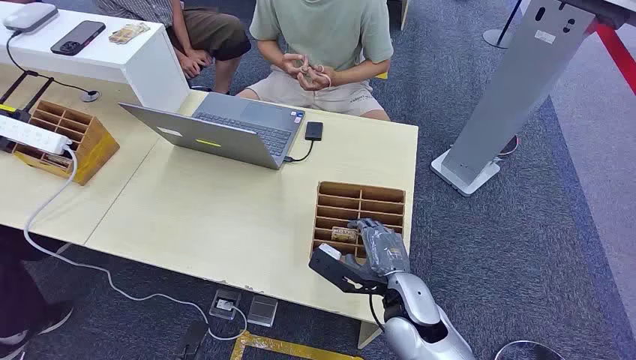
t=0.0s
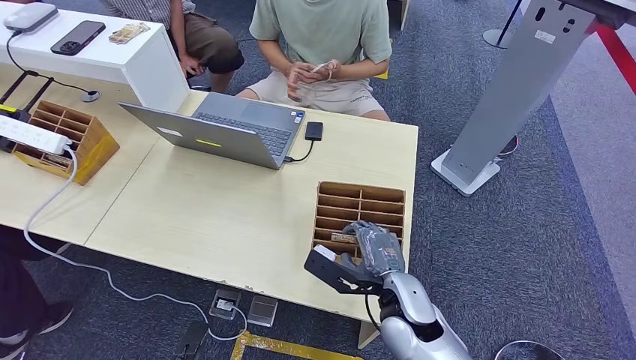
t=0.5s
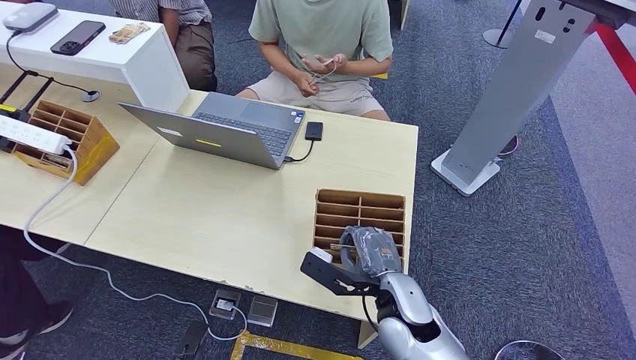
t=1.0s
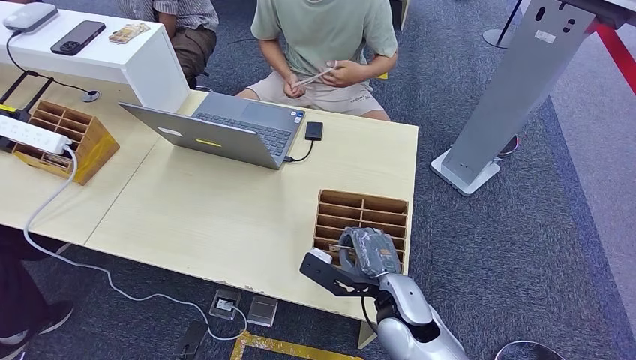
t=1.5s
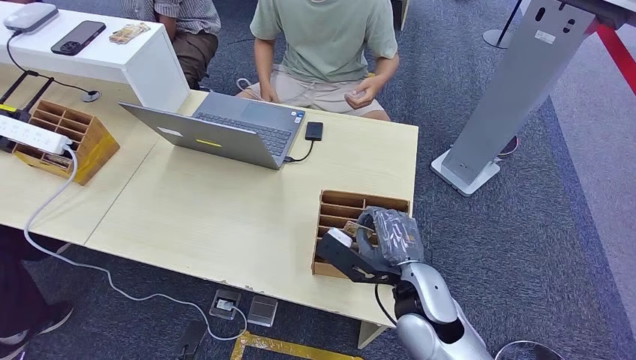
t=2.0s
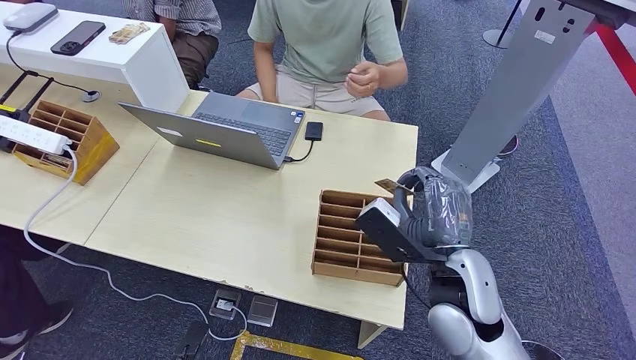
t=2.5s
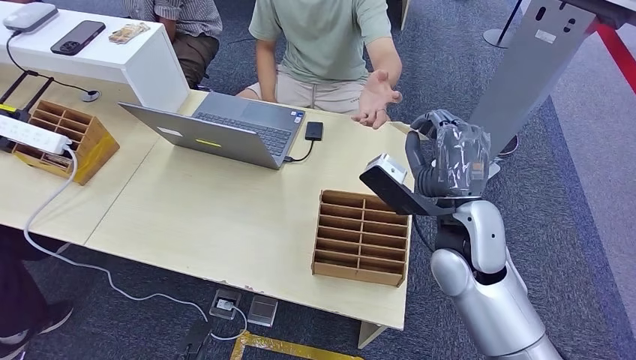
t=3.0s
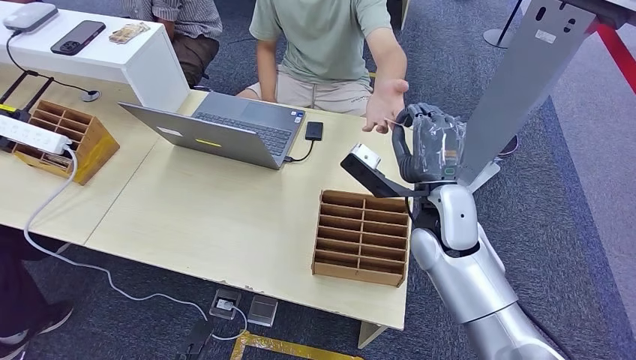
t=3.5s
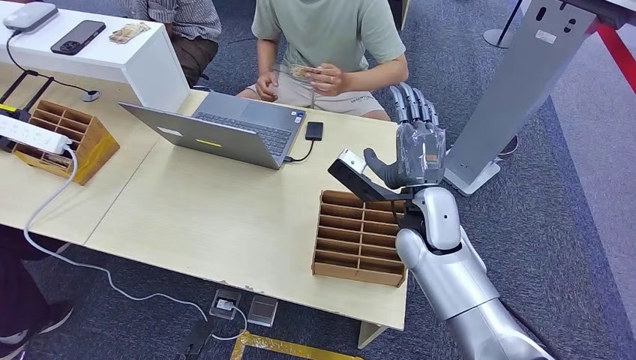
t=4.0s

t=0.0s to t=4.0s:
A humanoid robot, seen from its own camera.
Step, t=0.0s to t=2.0s: Pick up the room card from the card holder.
Step, t=3.0s to t=4.0s: Hand the room card to the target.
t=2.0s to t=4.0s: The right hand is displaced forward and upward by approximately 10 cm.

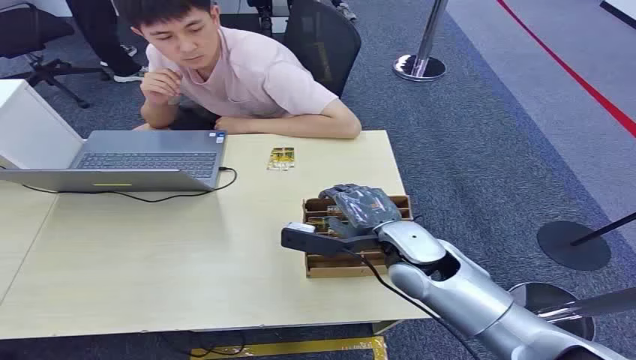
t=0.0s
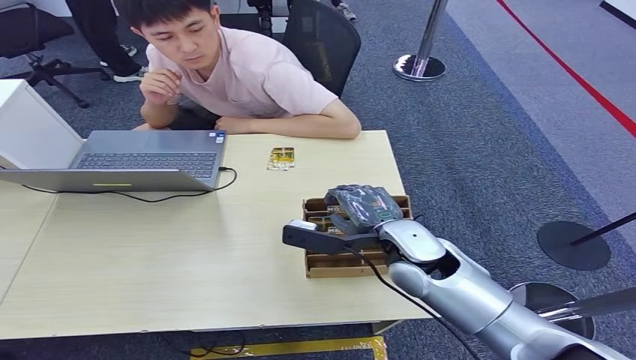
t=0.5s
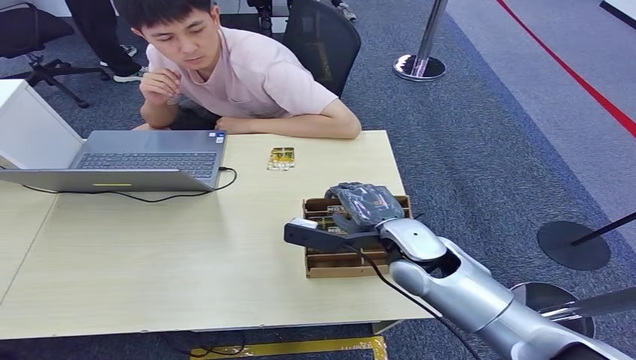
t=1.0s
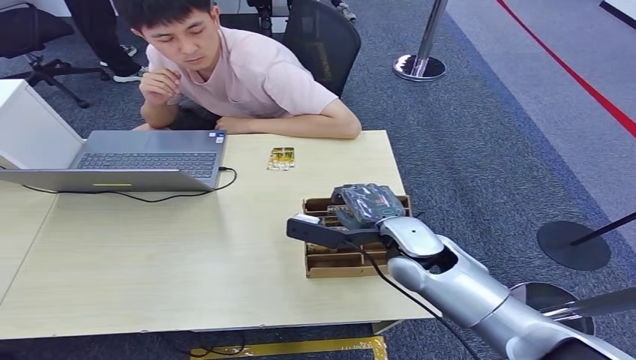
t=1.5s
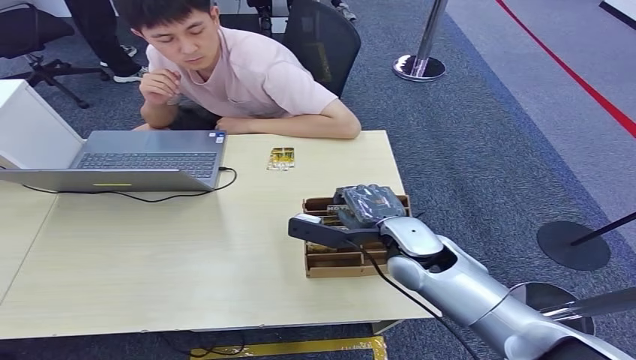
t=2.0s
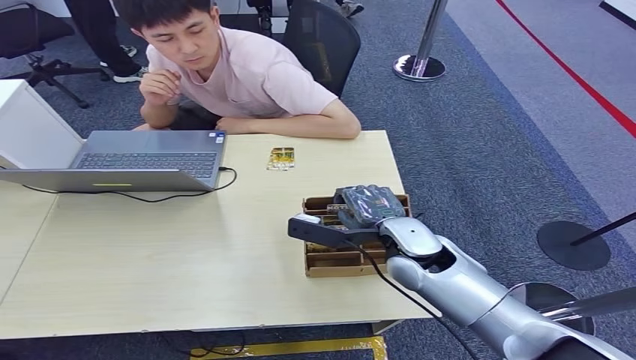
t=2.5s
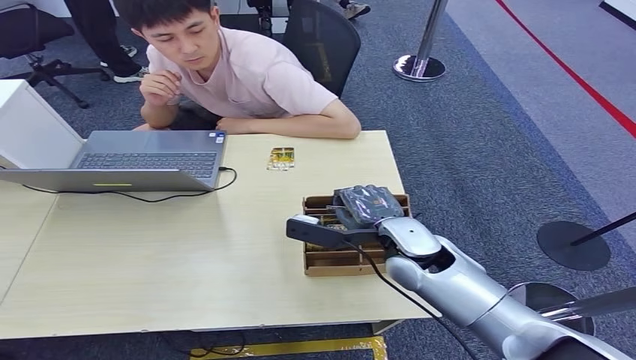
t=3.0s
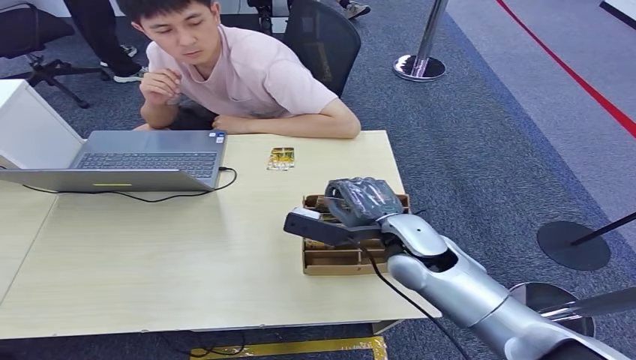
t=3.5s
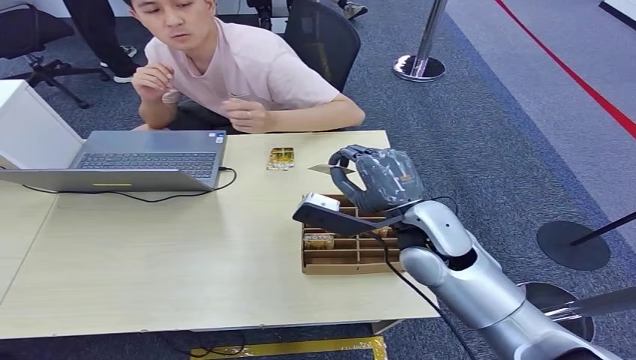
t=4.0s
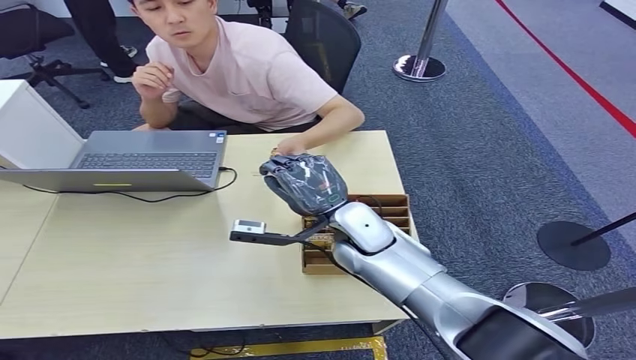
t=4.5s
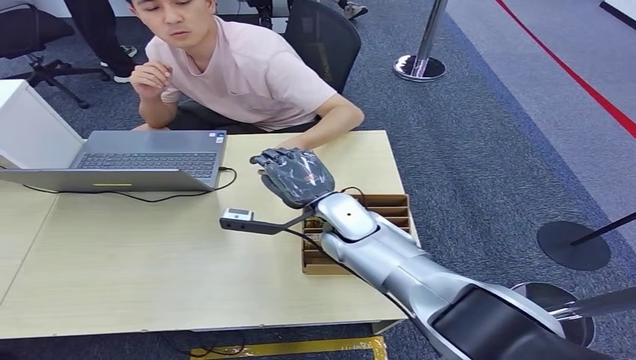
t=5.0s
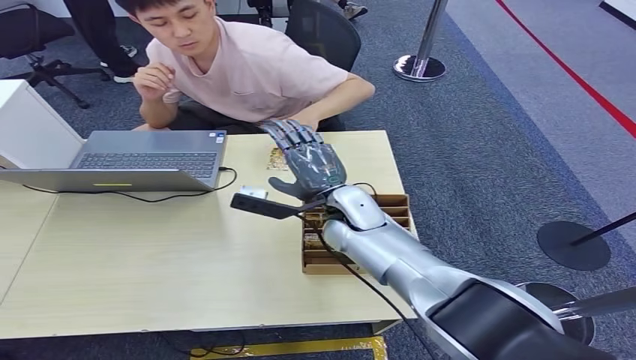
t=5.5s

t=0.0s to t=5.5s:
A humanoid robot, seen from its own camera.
Step, t=0.0s to t=3.5s: Pick up the room card from the card holder.
Step, t=4.0s to t=5.5s: Hand the room card to the target.
t=2.0s to t=3.5s: There are only small adjustments of the hands.
t=3.5s to t=5.5s: The right hand shifts approximately 10 cm to the left and forward.
